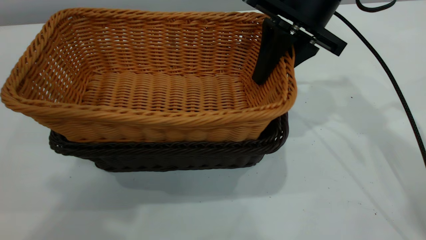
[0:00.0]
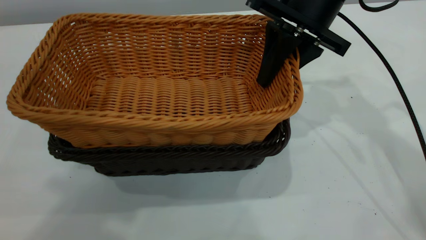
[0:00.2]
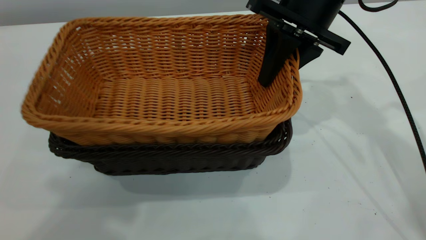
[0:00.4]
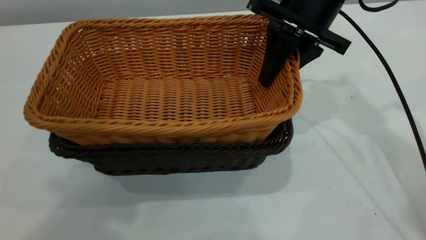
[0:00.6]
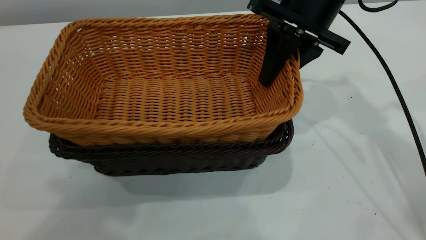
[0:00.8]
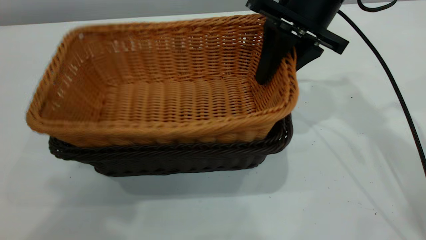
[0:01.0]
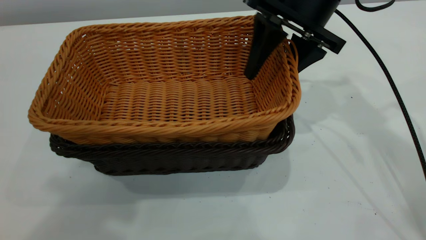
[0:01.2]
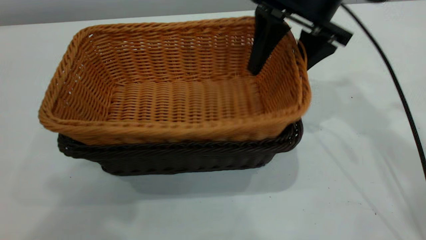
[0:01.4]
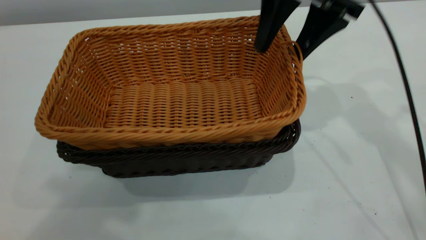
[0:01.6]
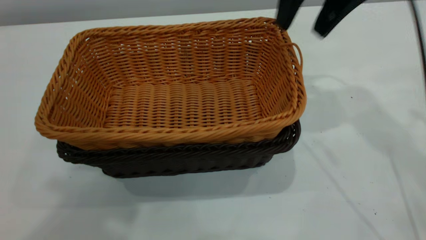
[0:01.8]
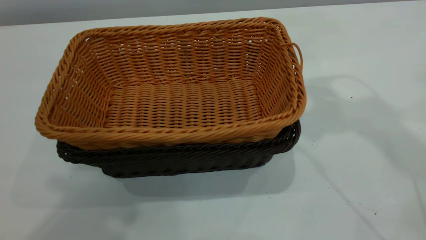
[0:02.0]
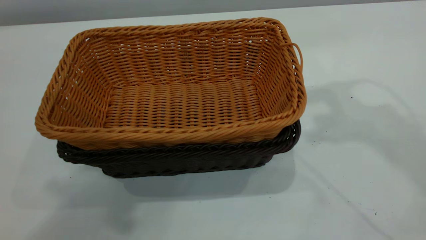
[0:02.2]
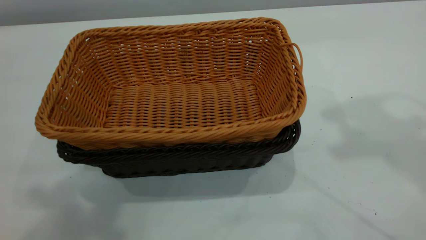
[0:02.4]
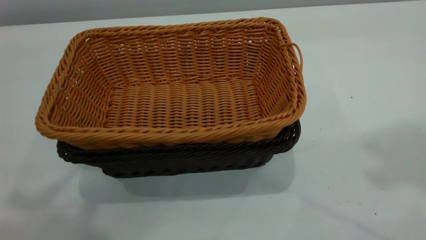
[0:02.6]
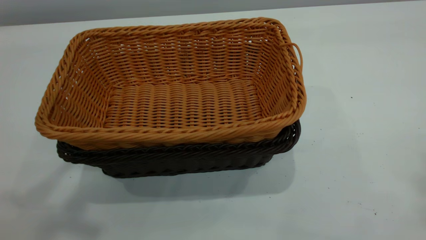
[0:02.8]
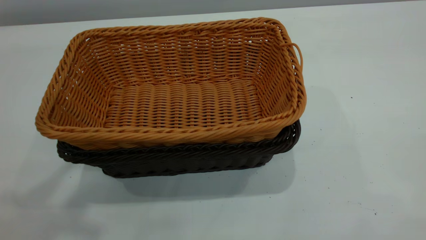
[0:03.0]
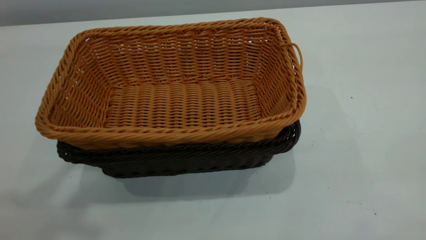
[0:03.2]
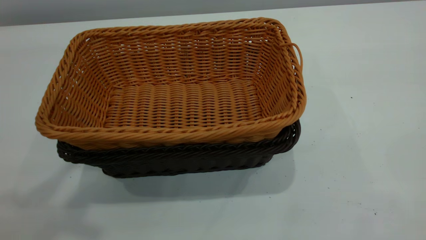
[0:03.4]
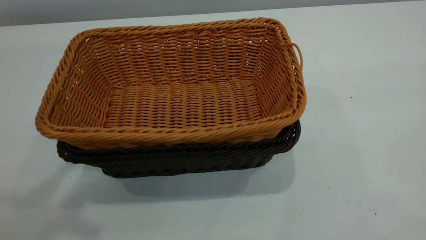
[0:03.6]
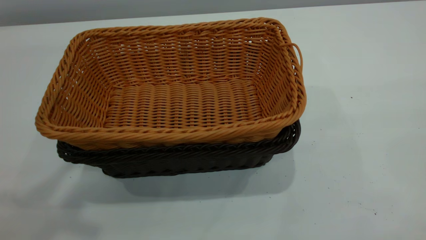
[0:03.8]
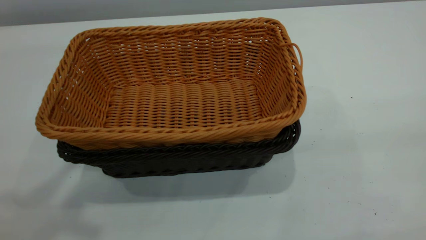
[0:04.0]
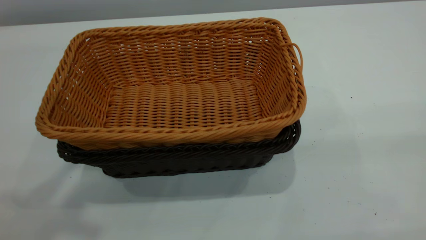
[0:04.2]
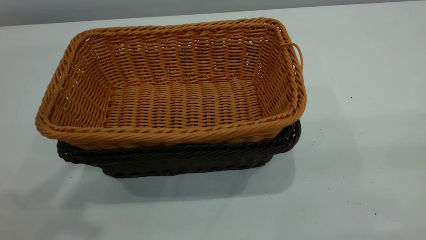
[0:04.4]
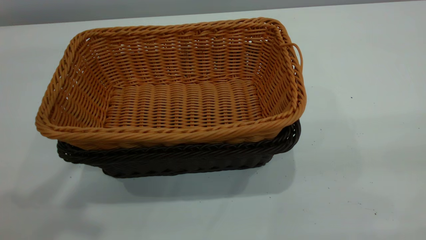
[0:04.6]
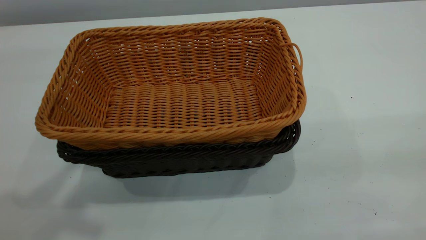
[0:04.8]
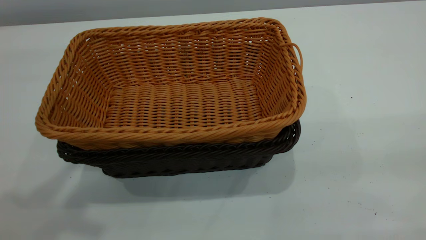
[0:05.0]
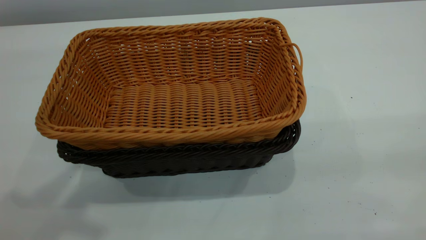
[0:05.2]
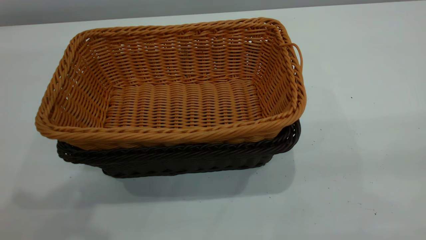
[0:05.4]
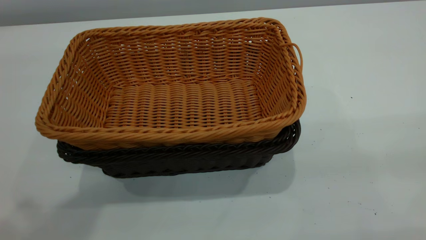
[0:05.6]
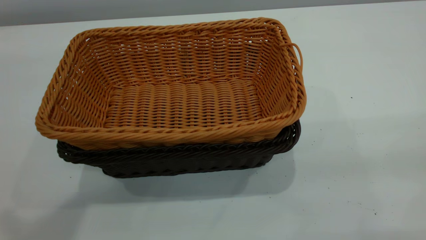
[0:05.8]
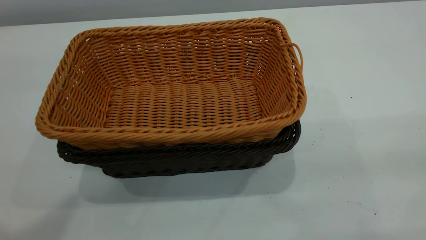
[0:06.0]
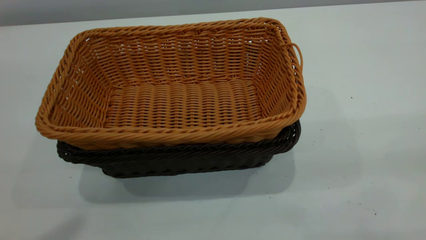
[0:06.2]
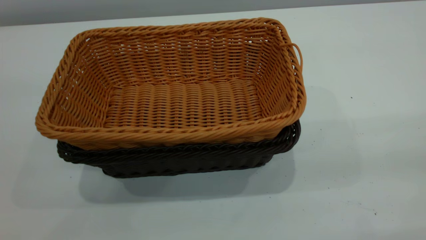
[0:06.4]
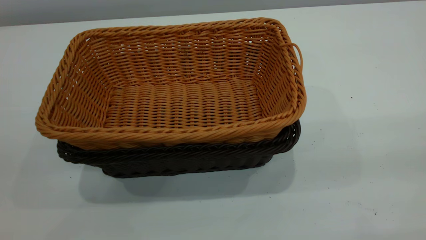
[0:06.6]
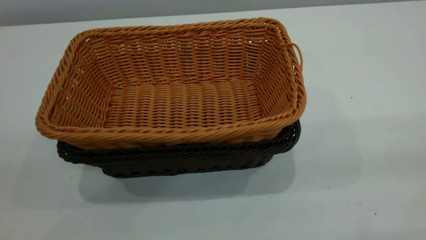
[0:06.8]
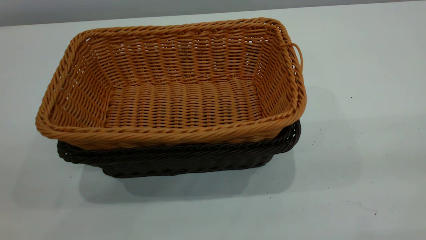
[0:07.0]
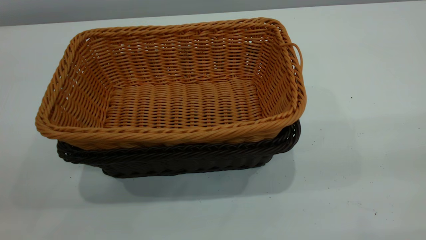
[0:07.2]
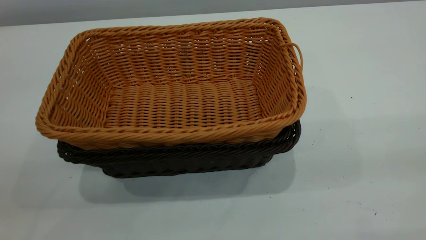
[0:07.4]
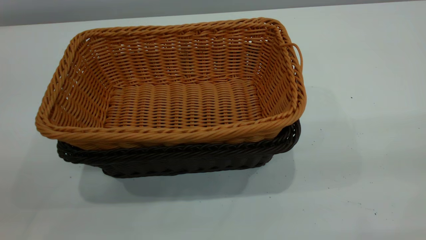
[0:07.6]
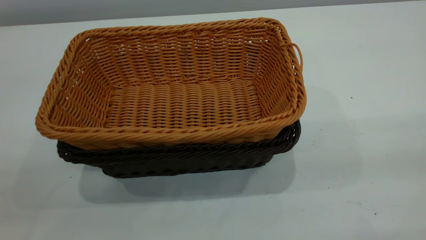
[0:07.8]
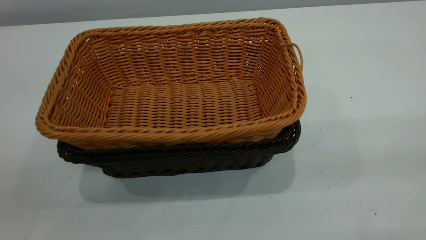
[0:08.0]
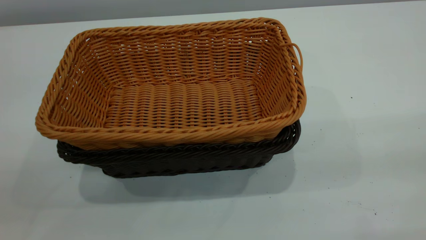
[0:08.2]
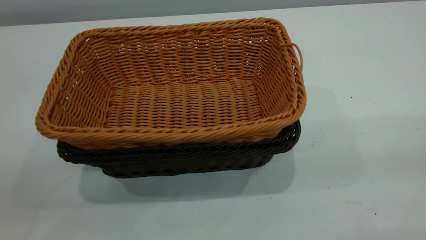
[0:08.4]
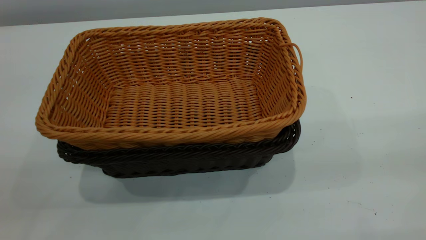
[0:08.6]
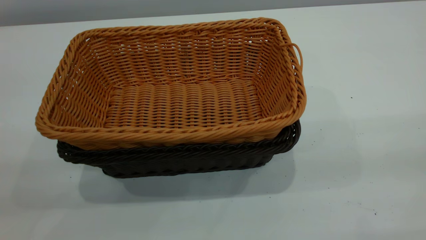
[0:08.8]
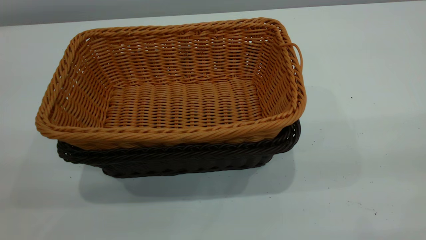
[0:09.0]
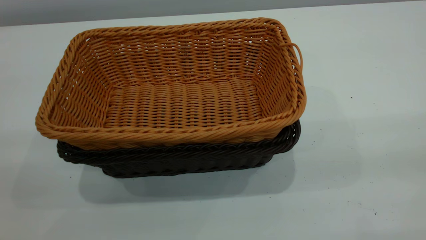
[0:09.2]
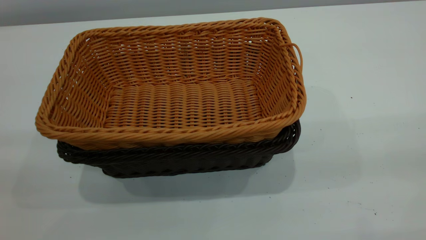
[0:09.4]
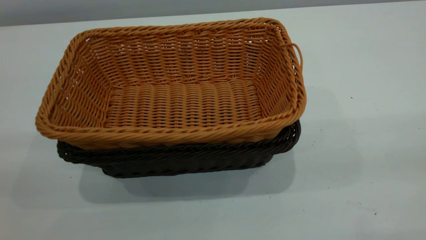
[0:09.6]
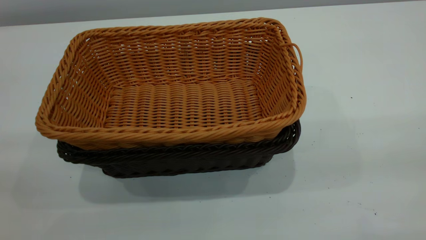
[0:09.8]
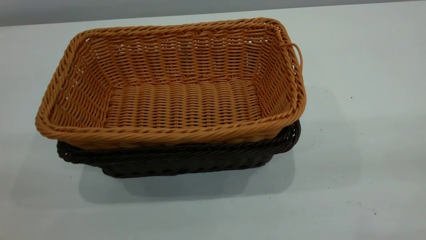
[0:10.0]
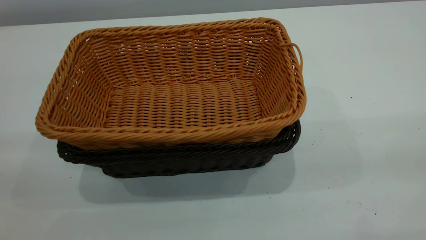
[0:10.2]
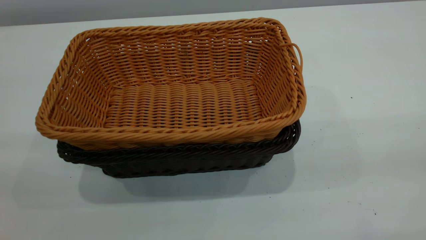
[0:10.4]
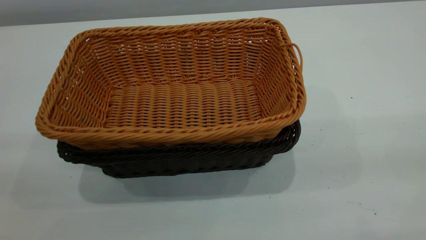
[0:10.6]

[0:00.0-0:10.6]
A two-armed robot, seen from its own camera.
Task of the whole recording: the left gripper grasp the black basket and place it in the center of the table, the right gripper grasp the brown basket and place it inside the black one.
0:00.0 to 0:01.6: The right gripper changes place by about 5 cm, and opens.
0:01.6 to 0:03.0: The right gripper travels upward, backward and to the right by about 40 cm, and closes. Meanwhile the left gripper closes up.

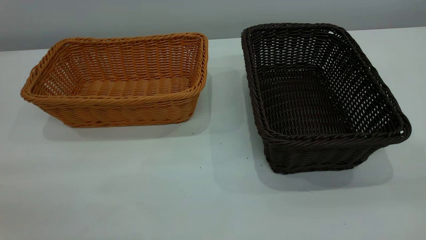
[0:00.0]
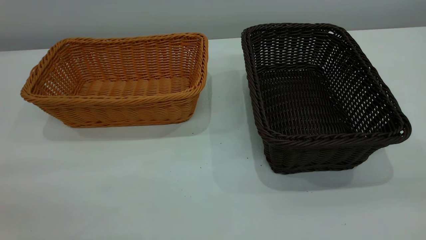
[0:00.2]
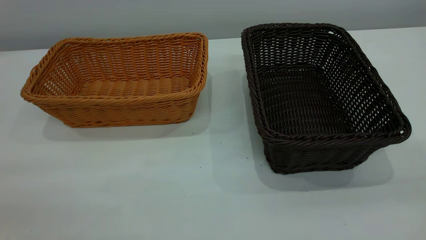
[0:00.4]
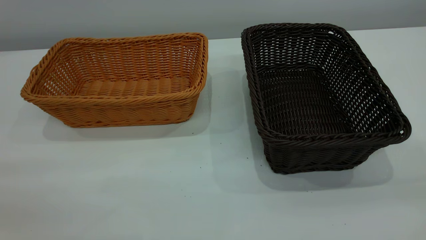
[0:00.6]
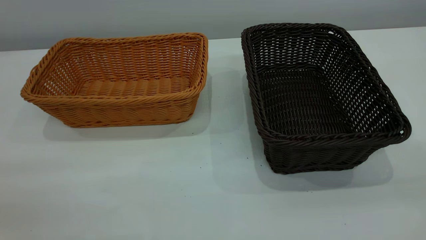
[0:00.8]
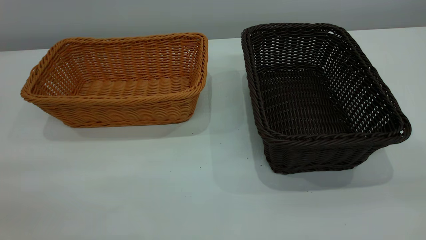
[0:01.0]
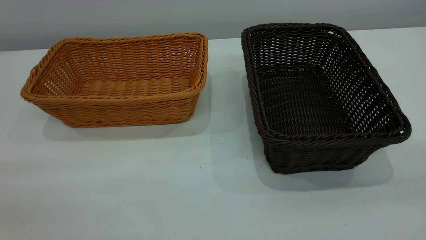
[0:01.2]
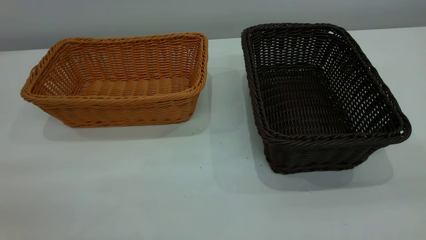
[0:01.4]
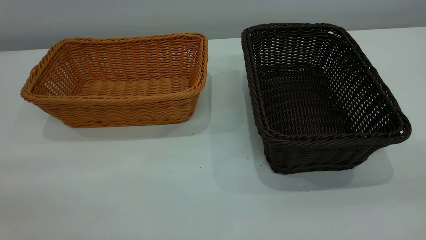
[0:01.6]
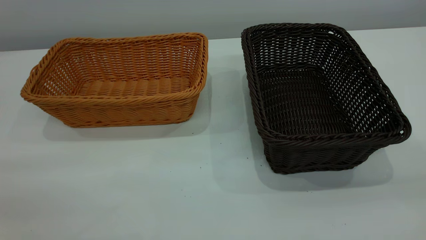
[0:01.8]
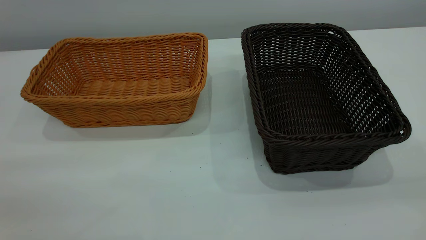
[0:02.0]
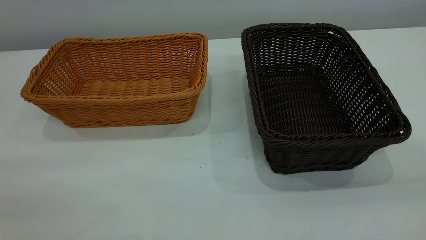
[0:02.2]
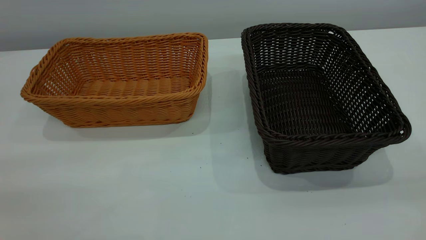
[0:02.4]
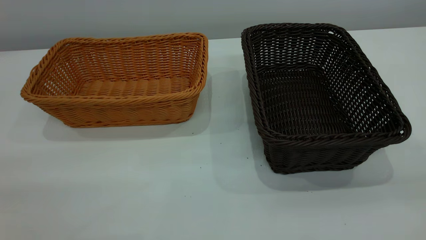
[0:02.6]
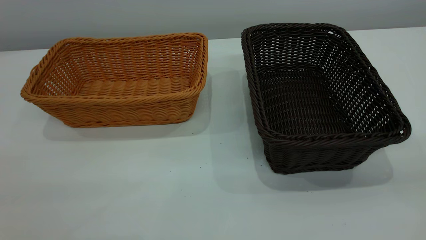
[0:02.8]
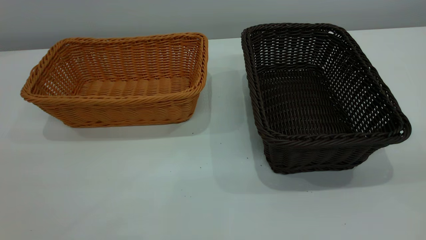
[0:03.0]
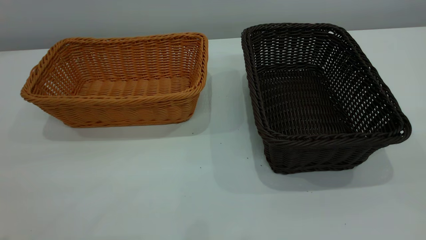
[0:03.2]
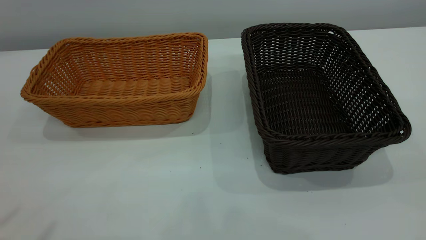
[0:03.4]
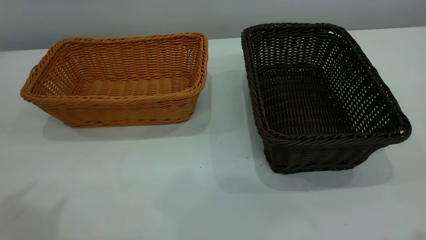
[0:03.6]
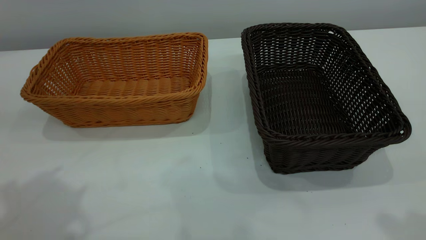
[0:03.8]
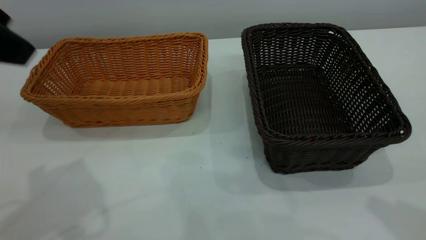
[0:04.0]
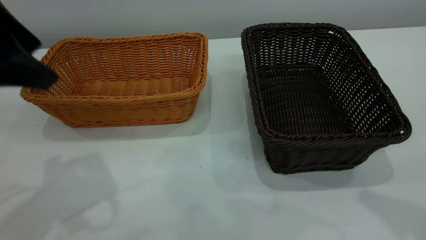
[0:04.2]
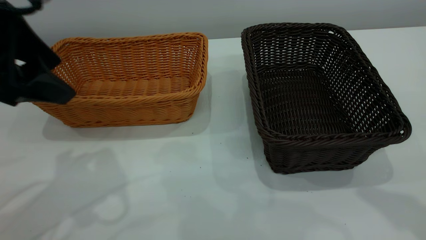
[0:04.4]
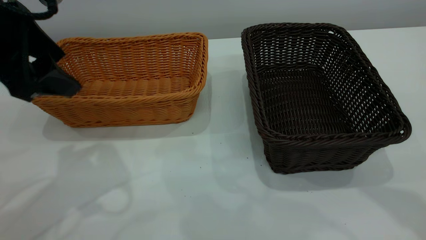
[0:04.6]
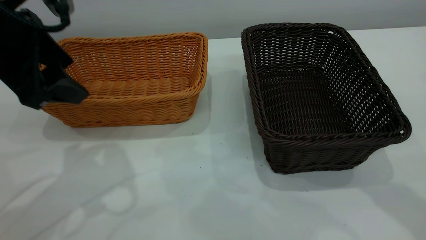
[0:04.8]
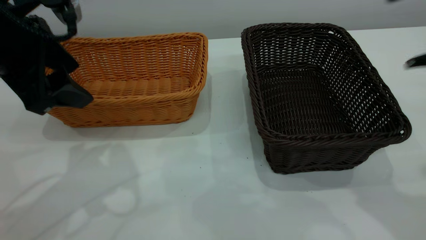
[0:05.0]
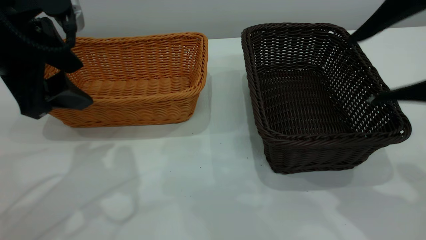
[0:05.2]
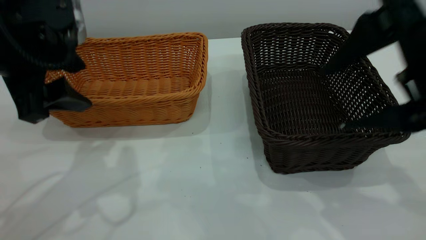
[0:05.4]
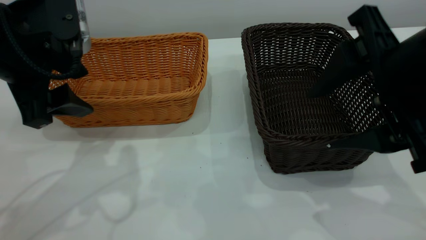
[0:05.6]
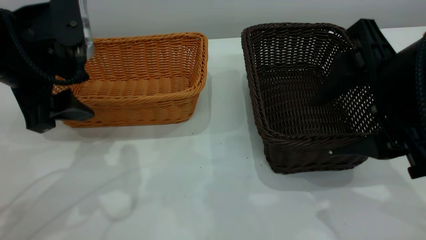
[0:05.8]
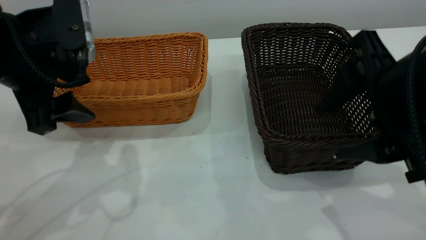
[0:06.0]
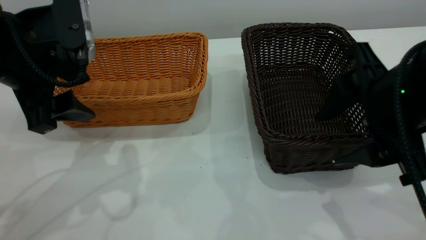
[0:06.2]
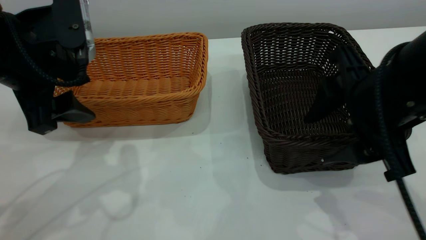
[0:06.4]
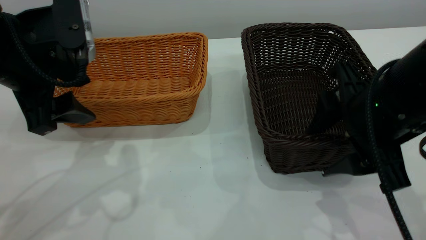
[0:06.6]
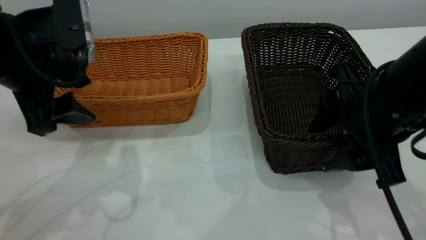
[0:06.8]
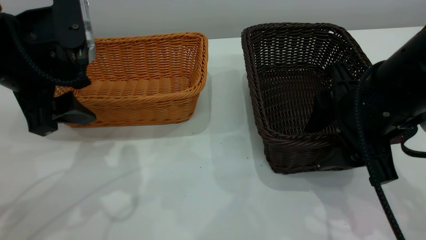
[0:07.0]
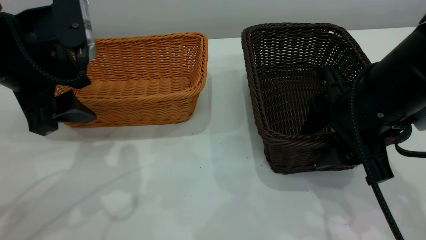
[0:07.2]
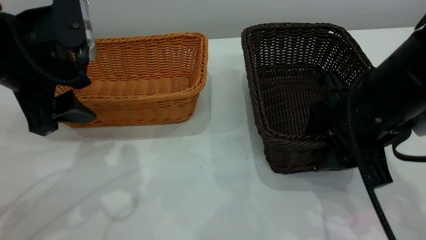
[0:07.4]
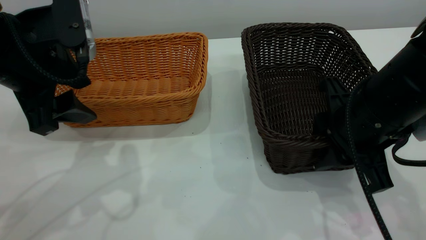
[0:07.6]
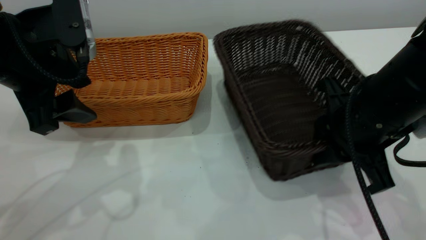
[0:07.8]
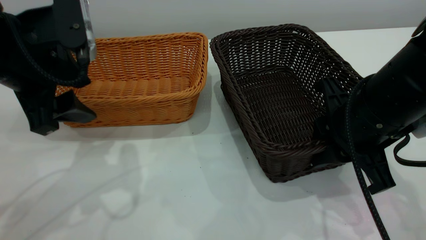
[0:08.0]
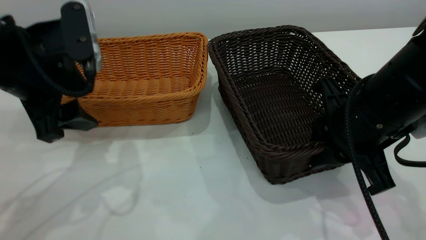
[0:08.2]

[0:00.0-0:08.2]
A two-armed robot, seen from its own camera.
Task of the whole recording: the left gripper grasp the brown basket and place it in the center of the table, the right gripper grasp the black basket and place it inside the brown one.
0:00.0 to 0:01.6: The two grippers keep their place.
0:03.2 to 0:05.0: The left gripper shifts some 25 cm forward and downward.
0:05.0 to 0:06.6: The right gripper is displaced downward and to the left by approximately 15 cm.
0:06.6 to 0:08.2: The right gripper closes up.
